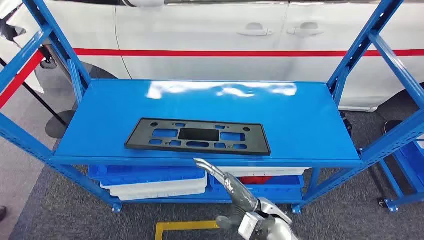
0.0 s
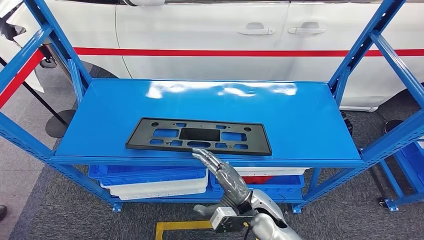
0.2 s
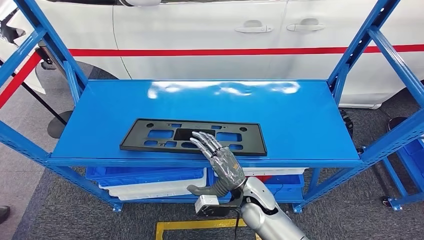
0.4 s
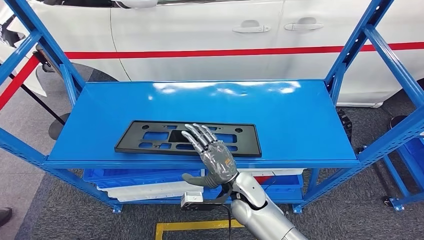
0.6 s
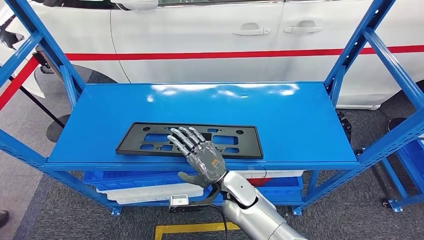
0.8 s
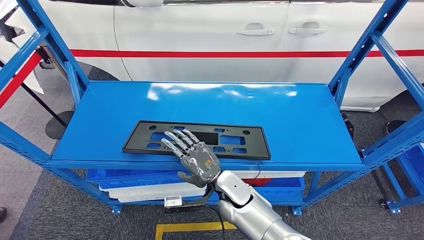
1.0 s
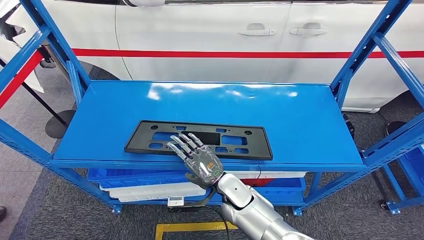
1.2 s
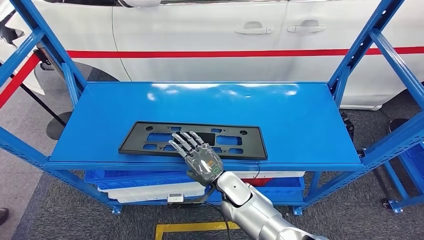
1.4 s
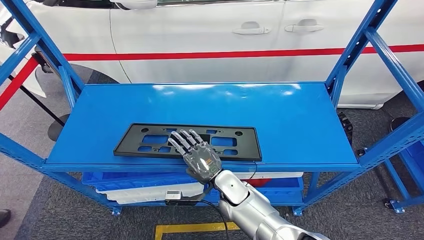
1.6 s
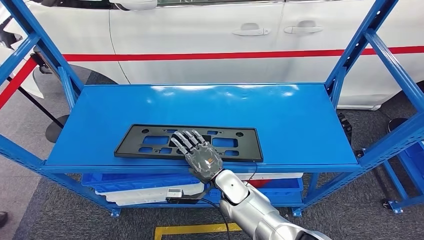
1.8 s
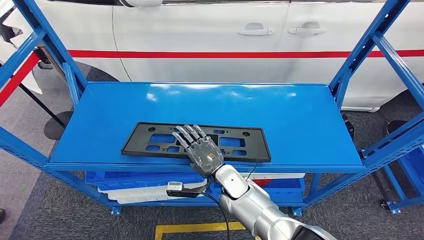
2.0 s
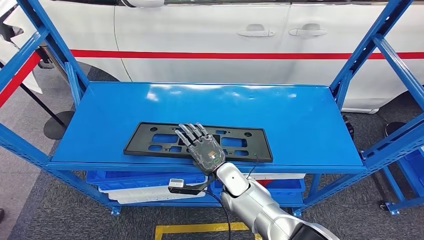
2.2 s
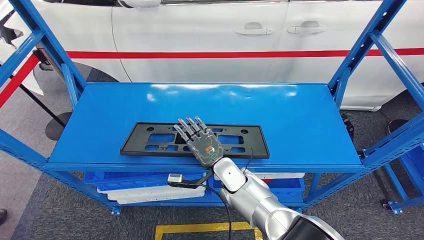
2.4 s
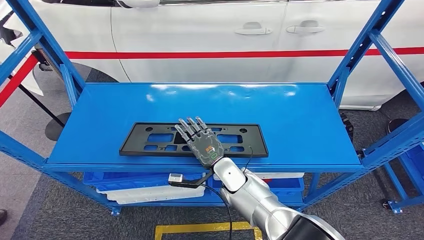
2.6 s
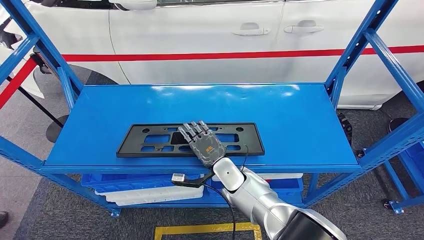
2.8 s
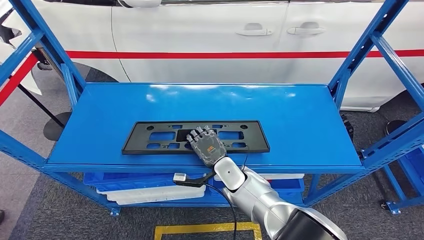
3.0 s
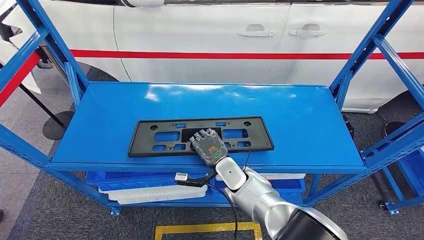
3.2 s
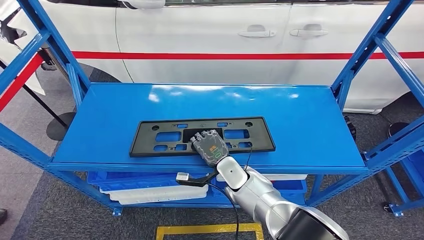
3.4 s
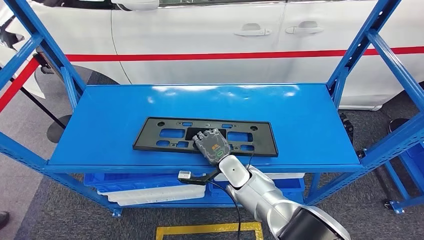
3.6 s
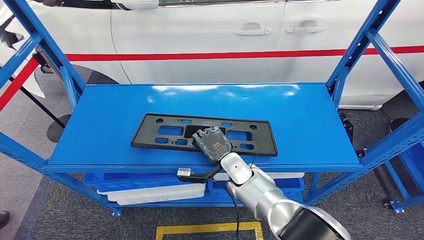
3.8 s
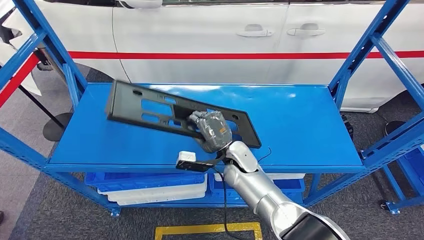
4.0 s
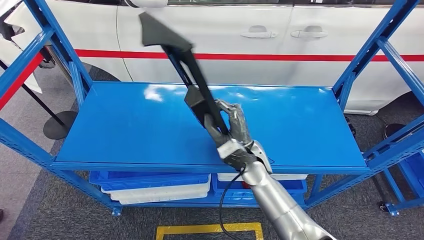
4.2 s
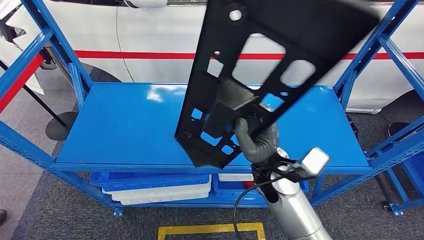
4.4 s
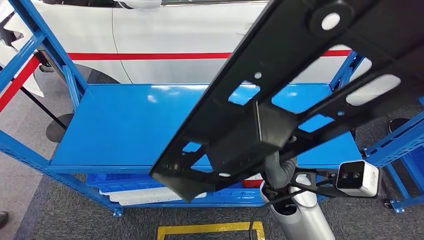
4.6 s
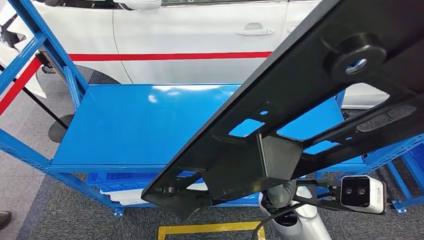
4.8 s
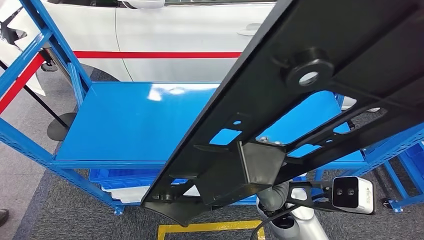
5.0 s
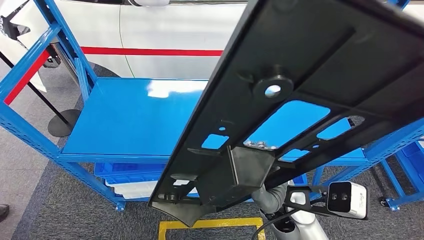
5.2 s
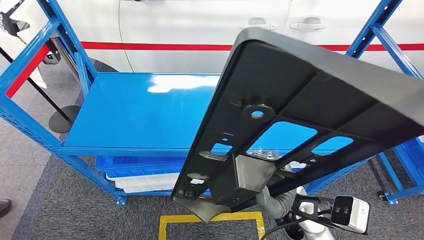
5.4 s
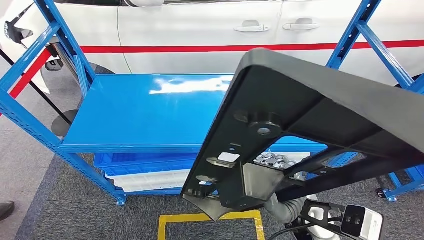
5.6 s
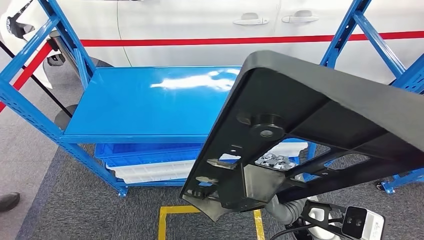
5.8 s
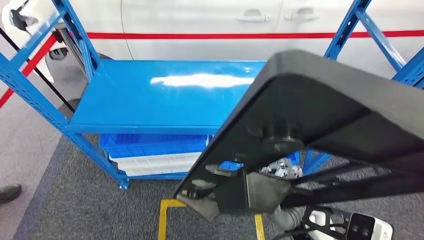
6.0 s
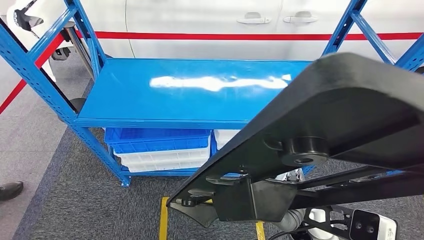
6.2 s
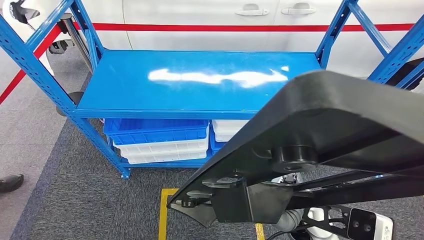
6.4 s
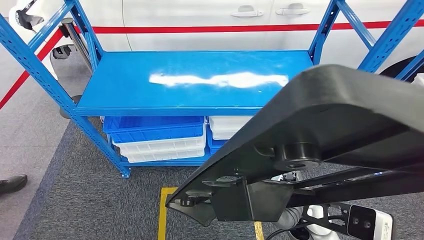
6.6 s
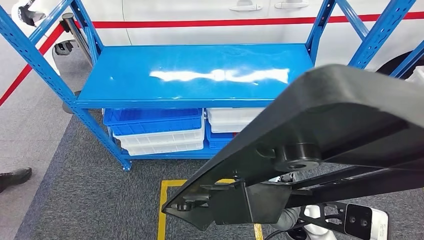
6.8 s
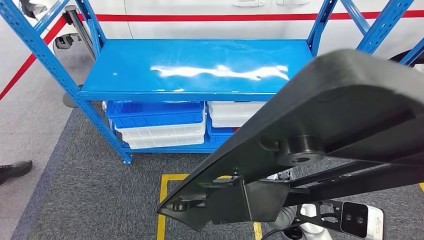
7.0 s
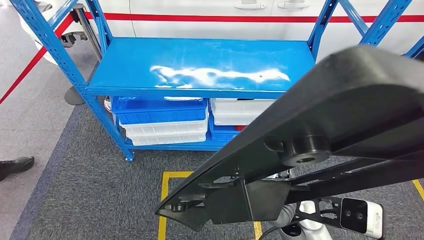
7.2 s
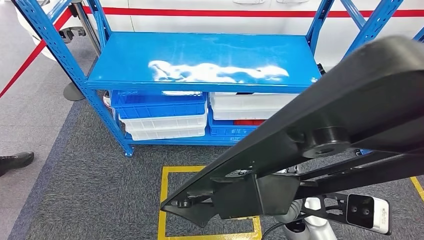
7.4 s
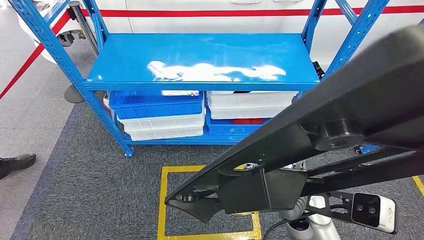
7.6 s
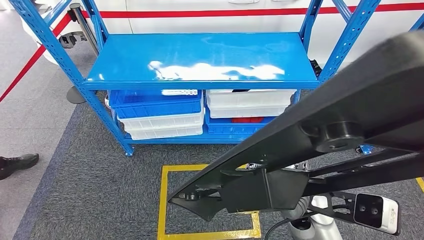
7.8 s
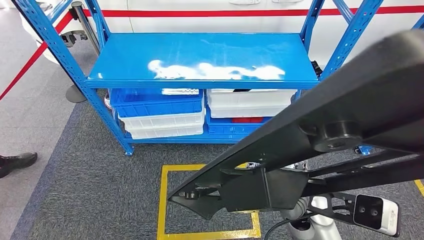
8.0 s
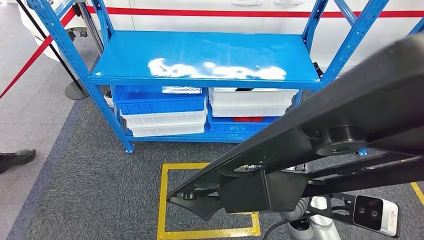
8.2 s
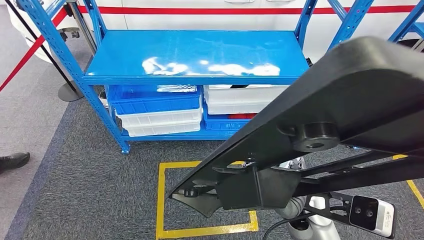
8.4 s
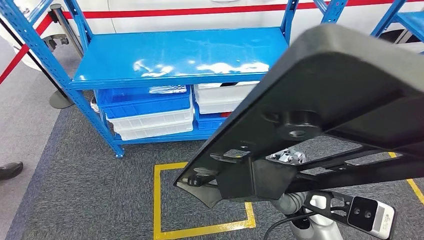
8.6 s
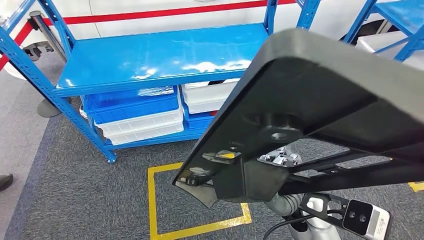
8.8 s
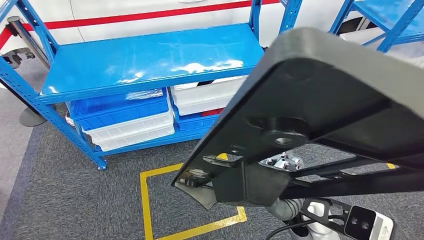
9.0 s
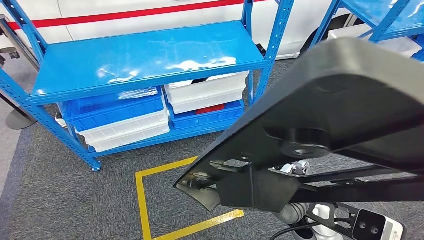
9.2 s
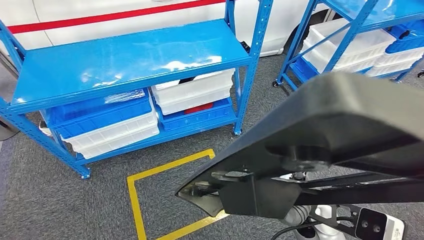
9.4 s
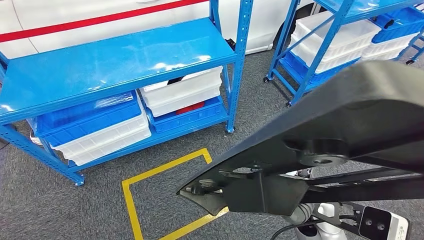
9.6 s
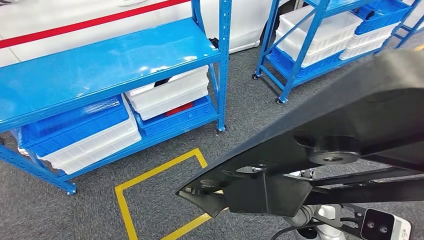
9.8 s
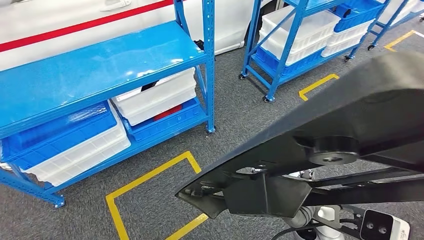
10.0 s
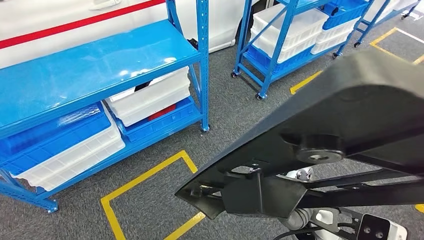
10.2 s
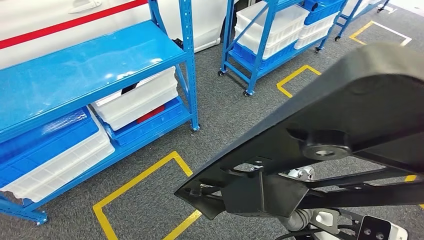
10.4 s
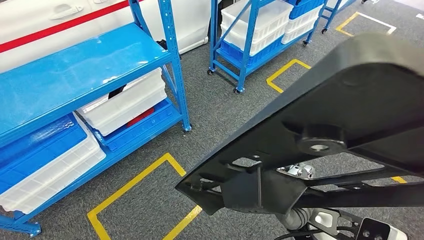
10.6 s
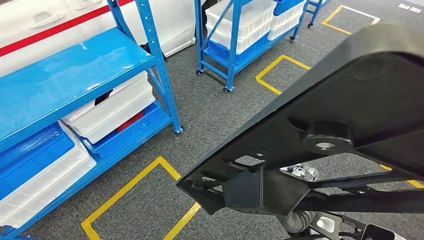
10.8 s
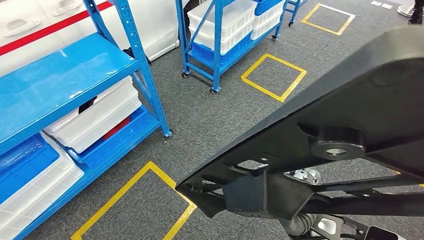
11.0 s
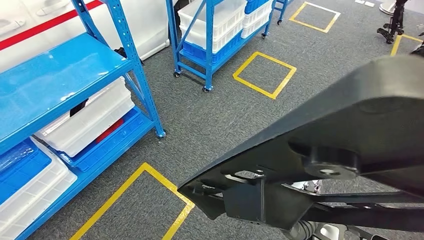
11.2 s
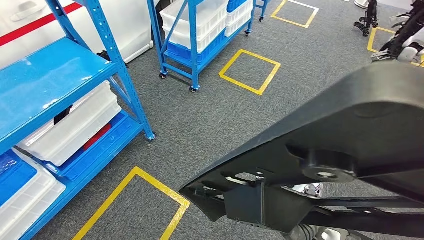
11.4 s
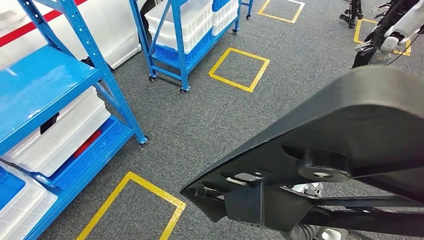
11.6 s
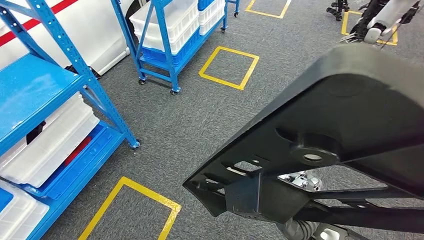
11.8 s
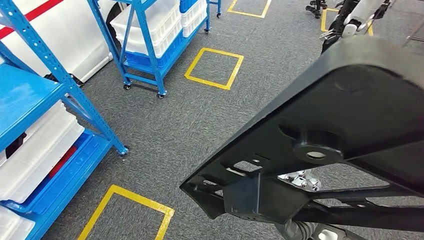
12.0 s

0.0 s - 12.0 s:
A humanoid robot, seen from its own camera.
Step, 0.0 s - 5.2 s: Pick up the large material from the shelf.

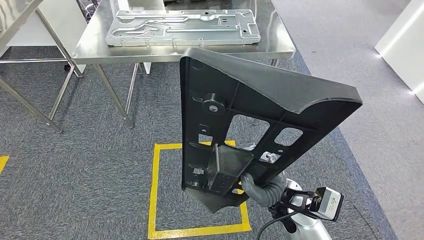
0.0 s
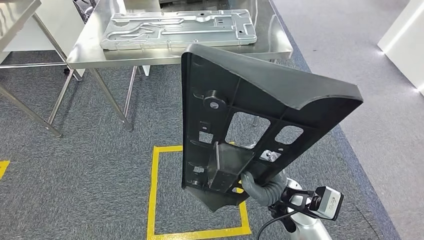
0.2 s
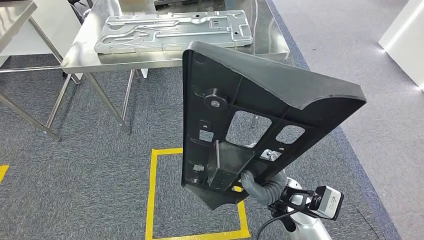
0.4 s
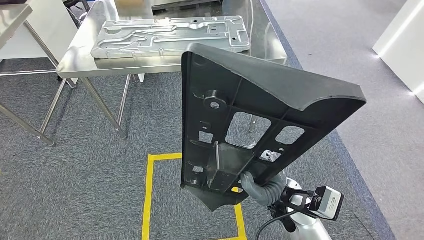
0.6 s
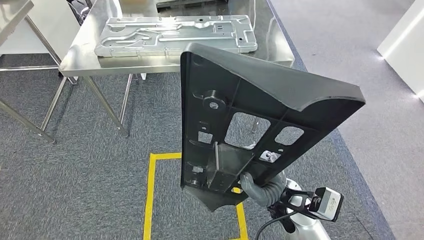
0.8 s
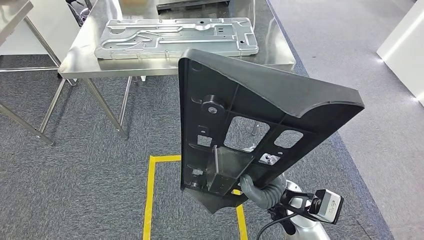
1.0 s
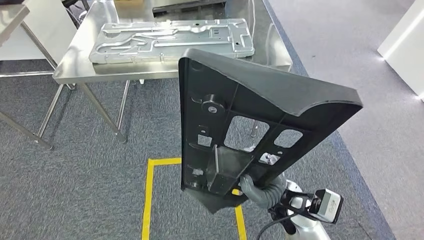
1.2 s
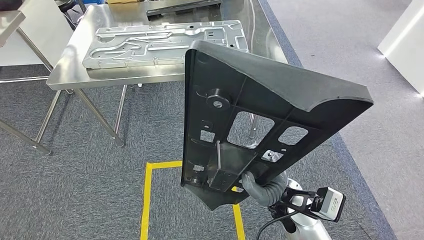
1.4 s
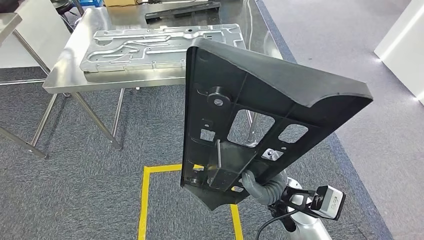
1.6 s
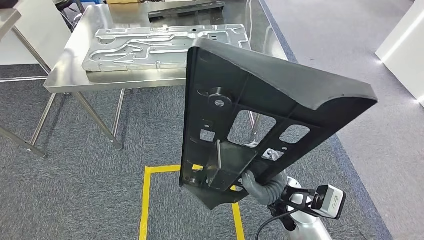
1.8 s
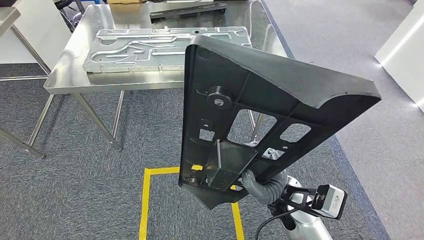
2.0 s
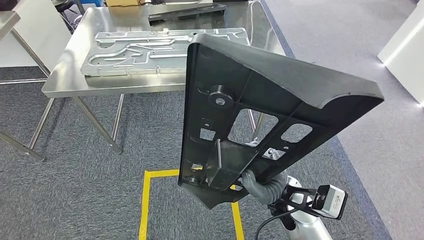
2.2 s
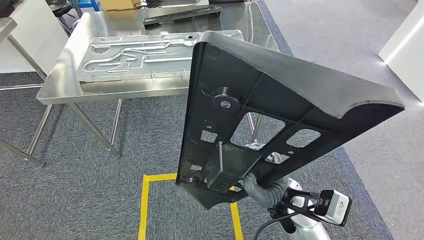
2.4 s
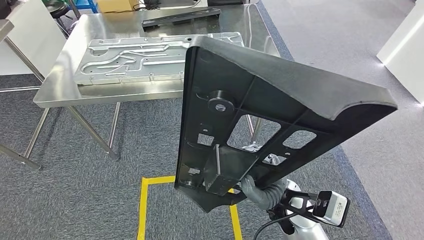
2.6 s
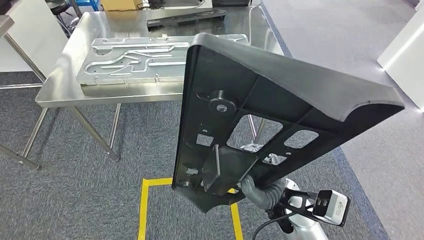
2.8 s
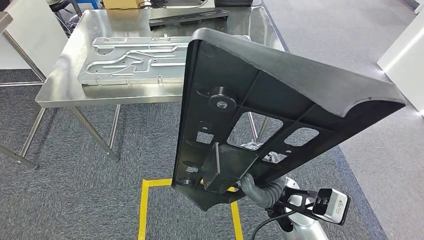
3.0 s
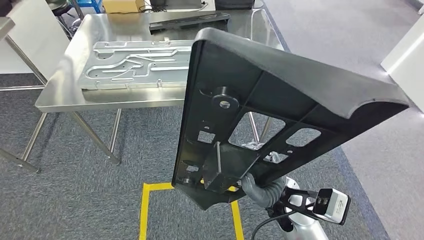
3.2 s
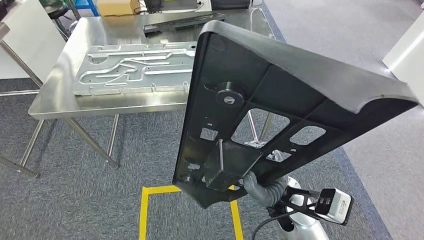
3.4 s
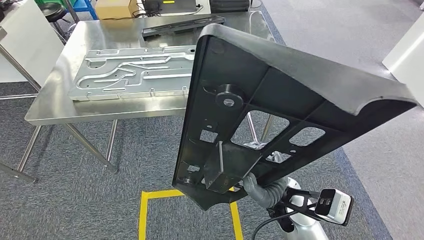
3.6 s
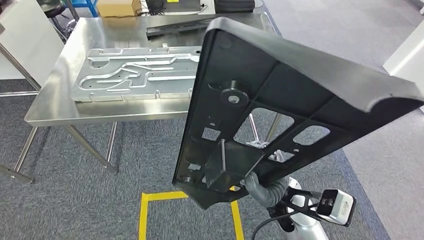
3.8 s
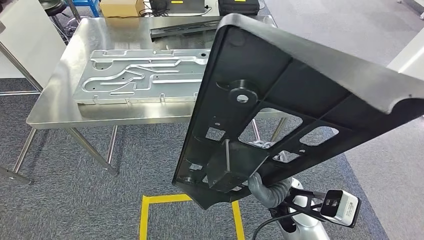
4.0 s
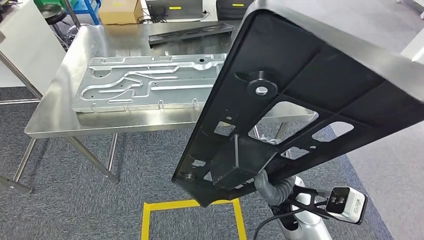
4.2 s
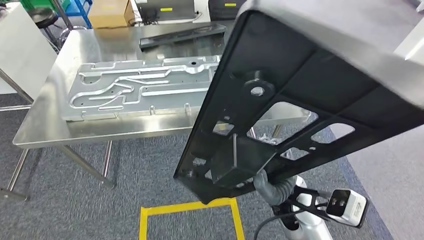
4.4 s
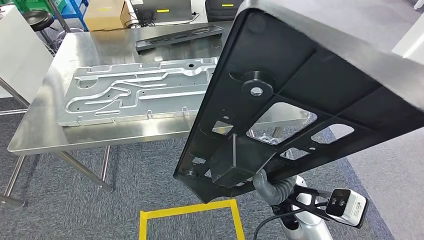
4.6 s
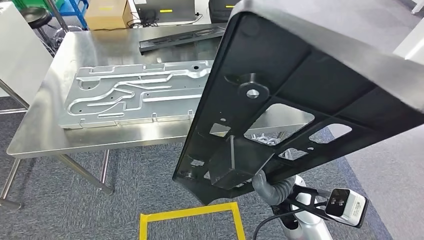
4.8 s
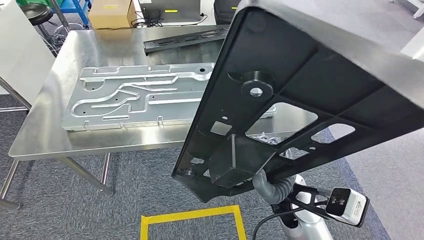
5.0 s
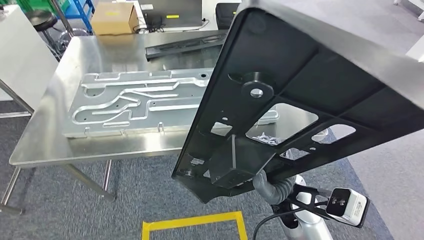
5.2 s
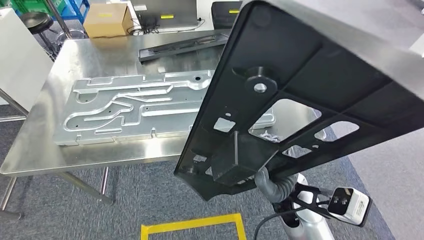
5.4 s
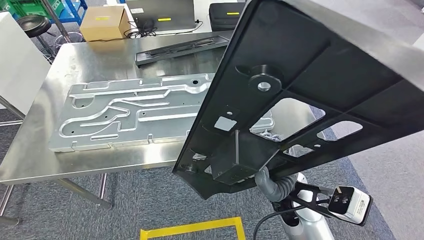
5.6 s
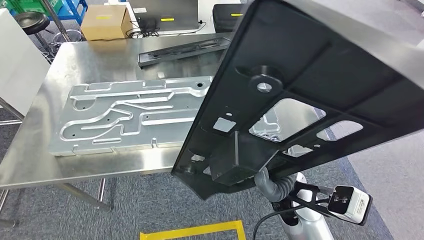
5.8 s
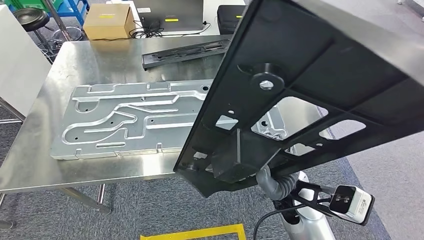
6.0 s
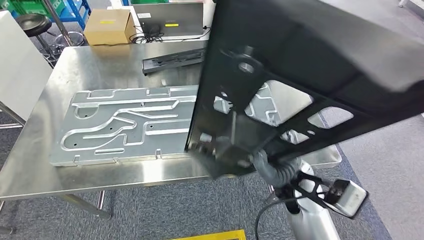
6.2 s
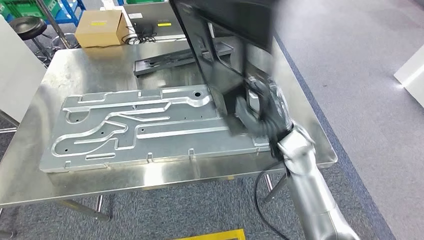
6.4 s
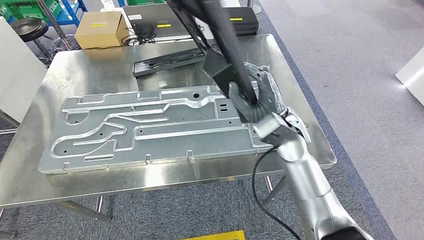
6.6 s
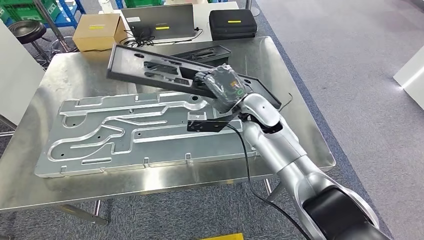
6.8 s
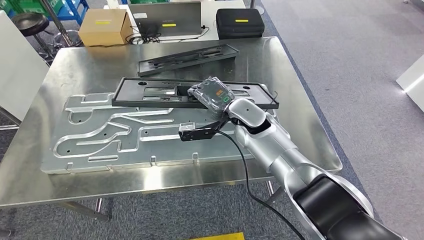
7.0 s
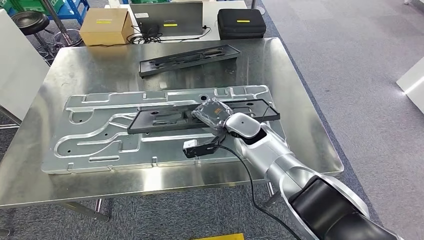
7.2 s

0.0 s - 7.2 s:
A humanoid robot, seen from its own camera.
Step, 0.0 s - 5.4 s: Move the large material to the workbench.
